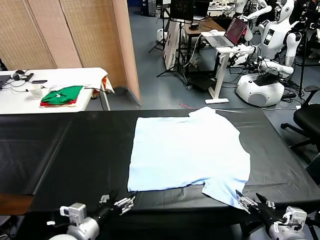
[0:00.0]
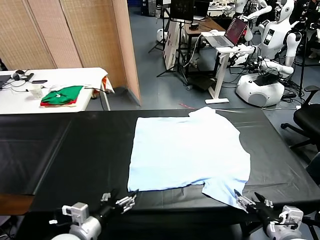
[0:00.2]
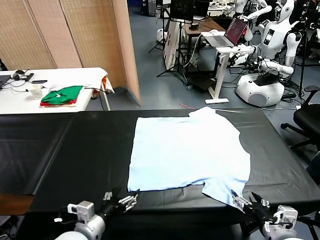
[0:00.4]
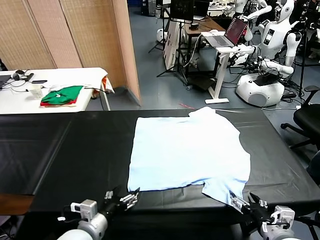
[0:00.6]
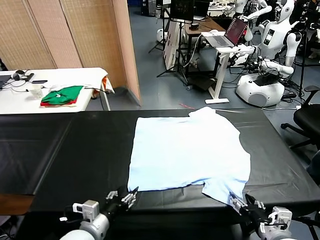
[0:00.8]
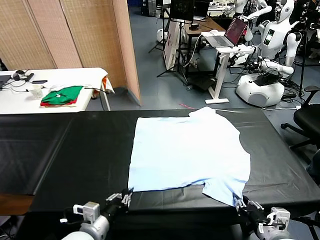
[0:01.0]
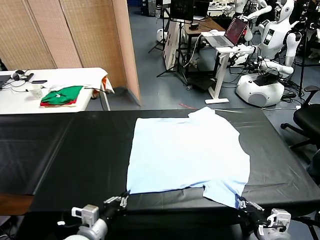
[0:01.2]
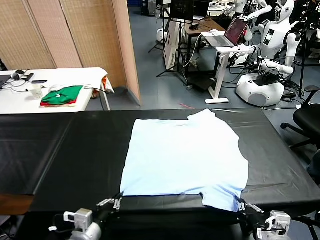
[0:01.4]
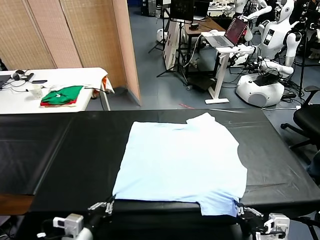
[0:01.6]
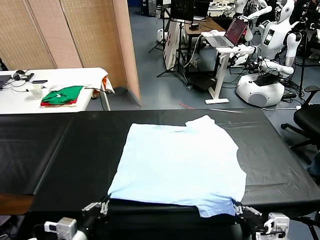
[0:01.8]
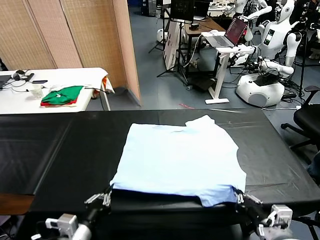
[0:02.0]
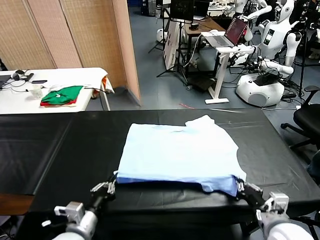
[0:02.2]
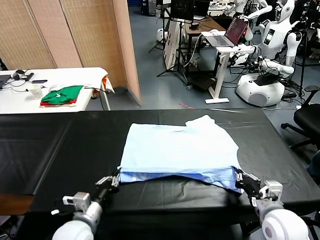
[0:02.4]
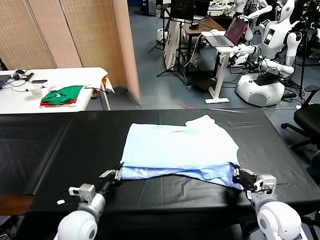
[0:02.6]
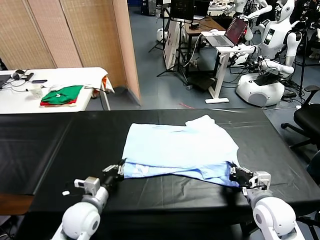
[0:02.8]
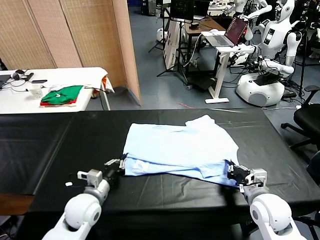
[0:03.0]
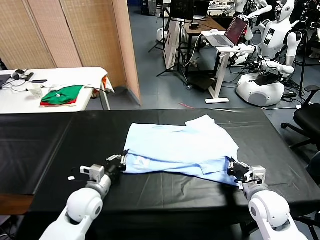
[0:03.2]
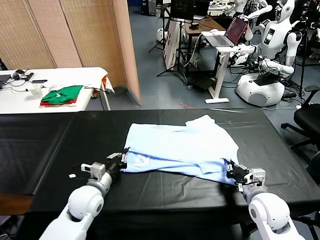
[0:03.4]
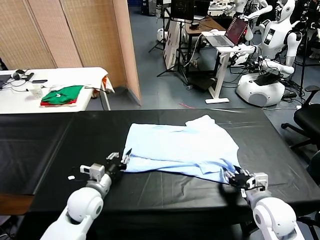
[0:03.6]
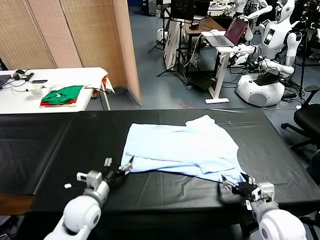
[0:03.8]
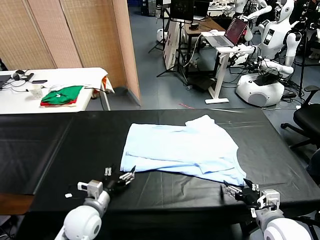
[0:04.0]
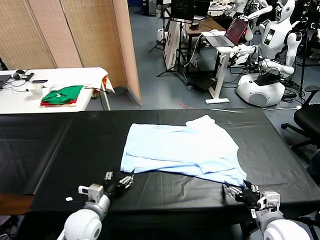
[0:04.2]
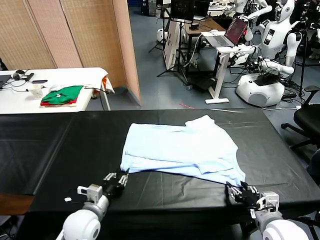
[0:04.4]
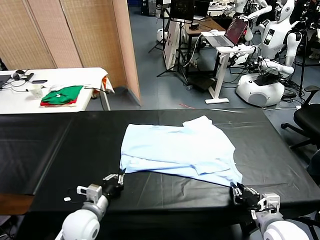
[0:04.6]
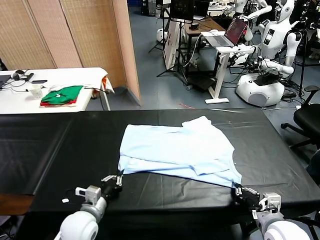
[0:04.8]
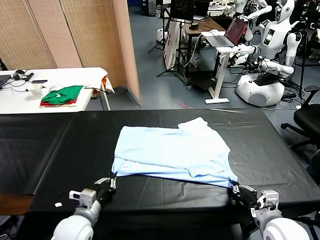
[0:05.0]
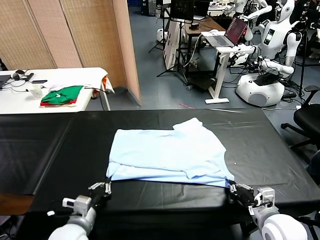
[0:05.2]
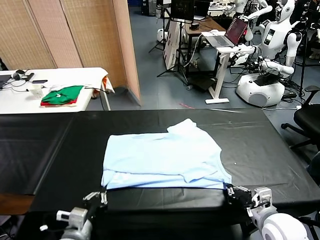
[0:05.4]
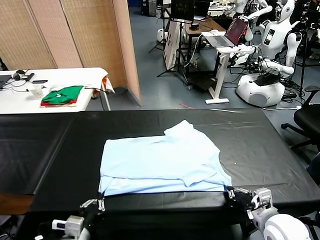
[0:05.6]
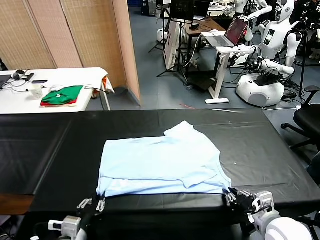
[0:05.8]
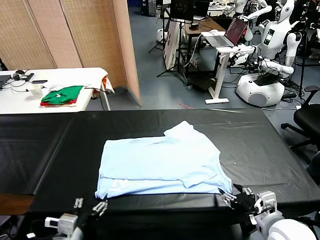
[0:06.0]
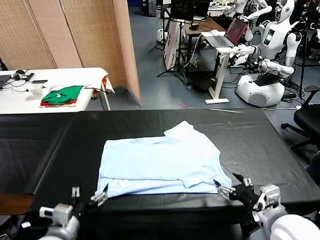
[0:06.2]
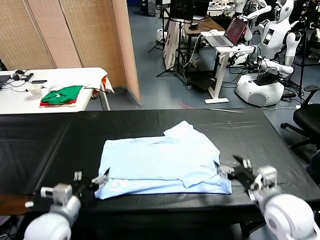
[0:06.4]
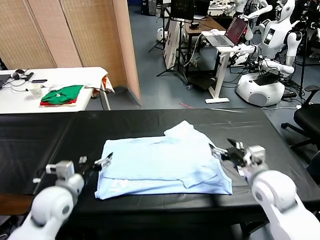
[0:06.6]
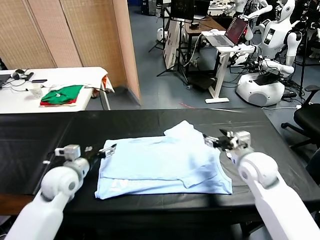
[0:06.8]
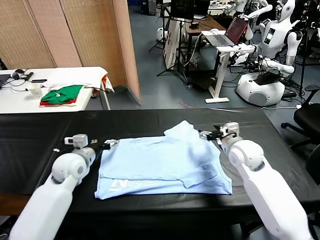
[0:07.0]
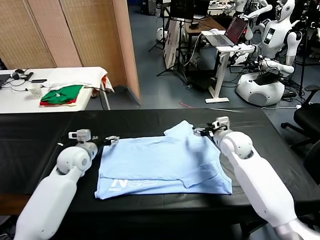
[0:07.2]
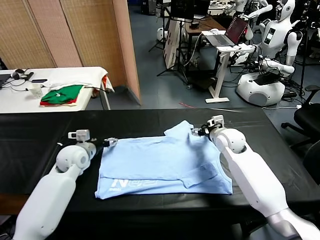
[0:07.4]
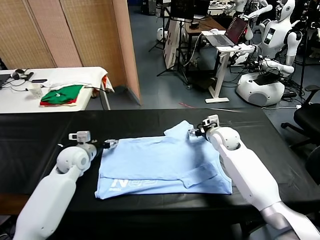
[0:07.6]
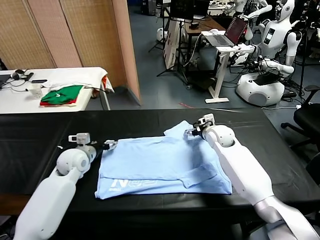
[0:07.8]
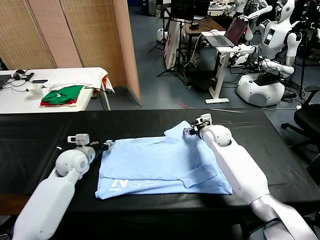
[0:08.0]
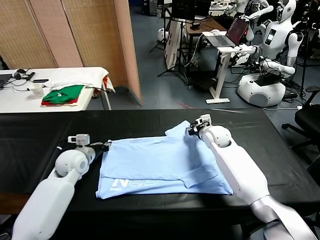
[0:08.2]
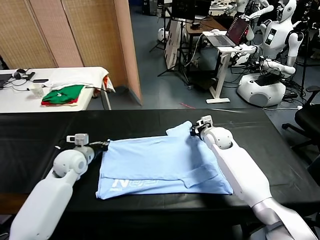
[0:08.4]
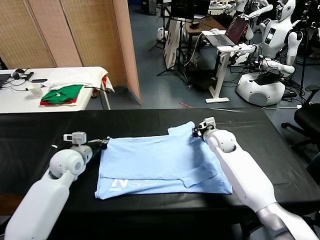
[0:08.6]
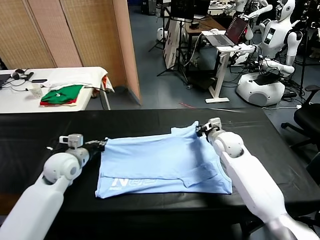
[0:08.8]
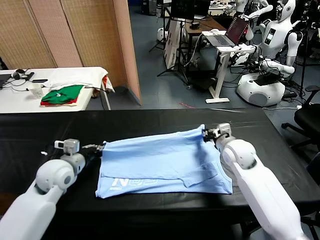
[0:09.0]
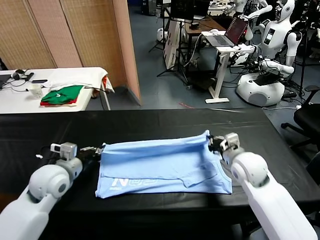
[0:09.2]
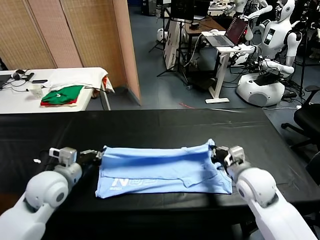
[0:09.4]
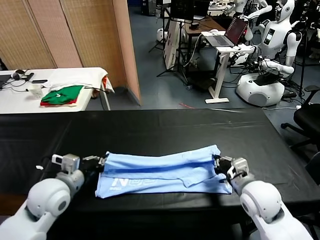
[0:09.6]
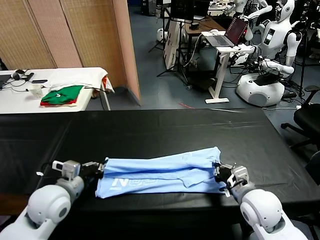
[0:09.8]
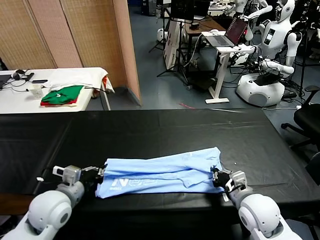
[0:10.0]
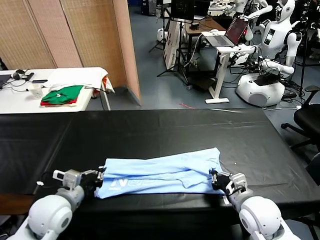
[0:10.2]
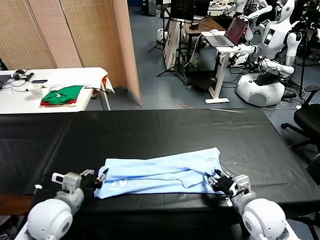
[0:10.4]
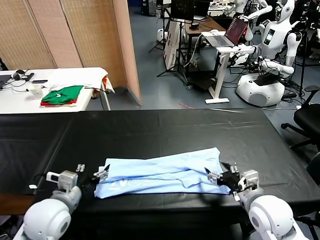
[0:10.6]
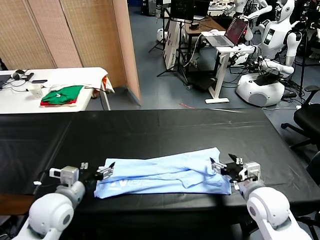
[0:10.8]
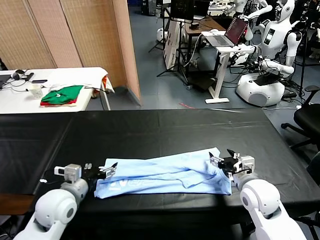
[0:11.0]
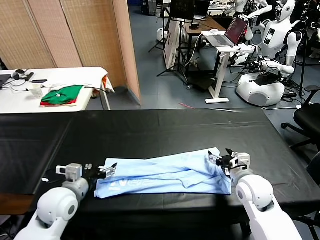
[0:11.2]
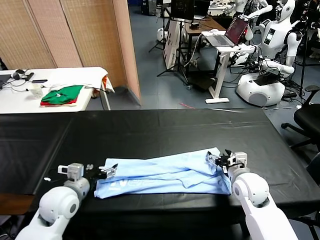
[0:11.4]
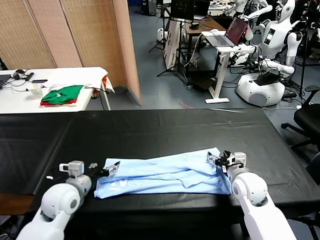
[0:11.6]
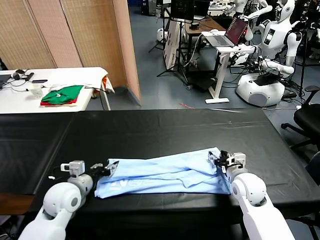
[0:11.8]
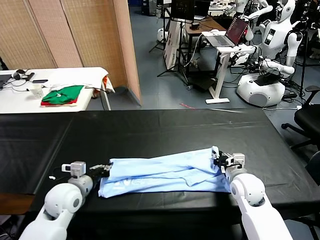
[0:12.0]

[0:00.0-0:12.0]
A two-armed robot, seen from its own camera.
Task of the whole recording: fold and organize the clothes.
Step, 0:00.0 to 0:01.2: use both grippers simultaneously to clamp the lower edge of the clothing fabric.
Step, 0:01.4 to 0:03.6: use both grippers to drag the lower edge of the fabric forward and fold it over the upper edge.
Step, 0:03.8 to 0:06.0: Drag the clothes downward with both gripper.
Step, 0:06.2 to 0:08.2: use both grippers simultaneously to clamp the upper edge of the clothing fabric.
Step, 0:08.4 to 0:10.2: use both grippers to drag the upper edge of the fabric backward and fold it over the lower edge.
0:01.6 to 0:03.0: The two grippers go approximately 15 cm forward.
0:03.0 to 0:04.4: The right gripper moves backward, about 10 cm, and opens and closes again. Meanwhile the left gripper moves roughly 5 cm, and opens, then closes once more.
0:04.4 to 0:06.0: The left gripper shifts roughly 10 cm backward and upward, and opens up; the right gripper is displaced upward by about 5 cm, and opens up.
0:06.0 to 0:07.6: Both grippers travel together forward, approximately 30 cm.
0:07.6 to 0:09.0: Both grippers move backward, about 10 cm. The left gripper closes. The right gripper closes up.
0:09.0 to 0:10.4: Both grippers move backward, approximately 15 cm. The right gripper opens its fingers. The left gripper opens its fingers.
0:10.4 to 0:12.0: The right gripper shifts roughly 10 cm forward and downward, and closes, while the left gripper moves forward, approximately 5 cm, and closes its fingers.

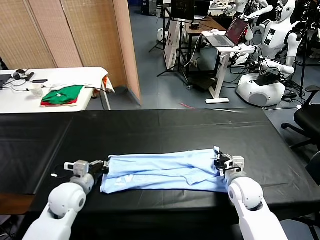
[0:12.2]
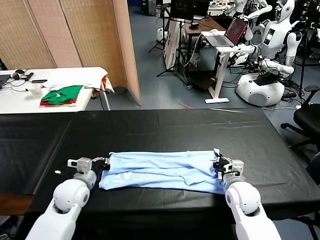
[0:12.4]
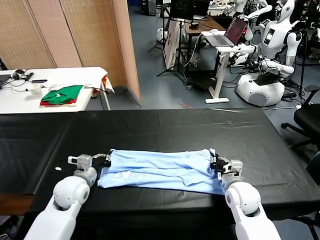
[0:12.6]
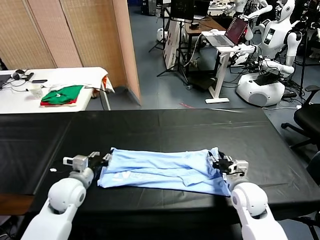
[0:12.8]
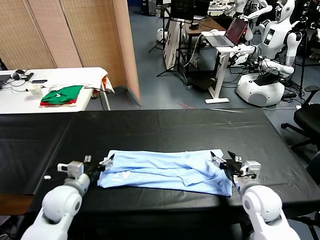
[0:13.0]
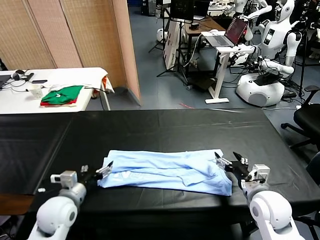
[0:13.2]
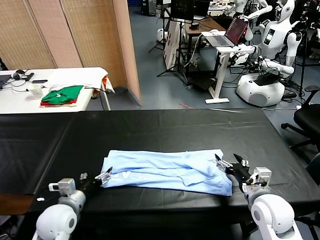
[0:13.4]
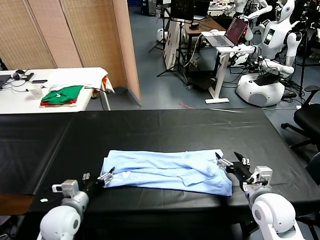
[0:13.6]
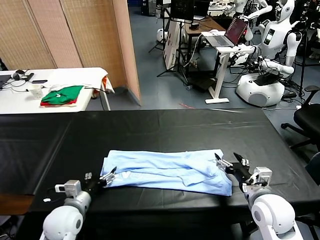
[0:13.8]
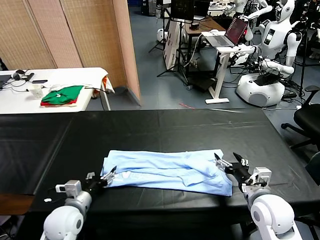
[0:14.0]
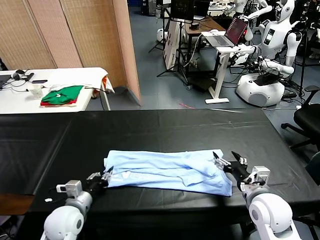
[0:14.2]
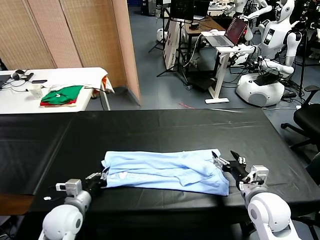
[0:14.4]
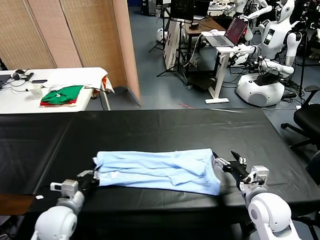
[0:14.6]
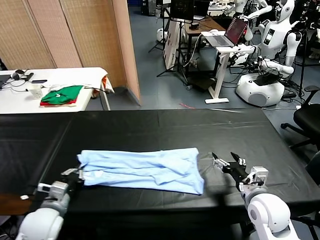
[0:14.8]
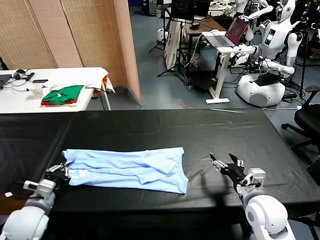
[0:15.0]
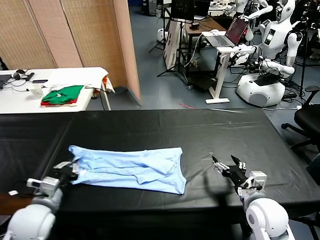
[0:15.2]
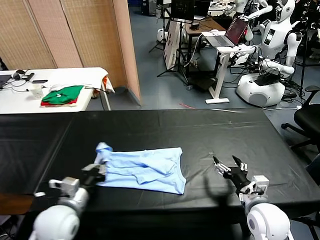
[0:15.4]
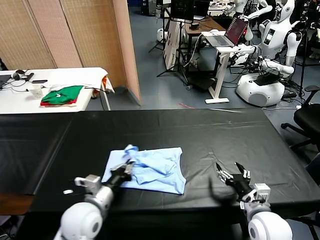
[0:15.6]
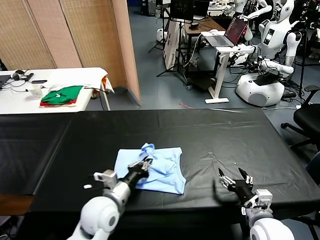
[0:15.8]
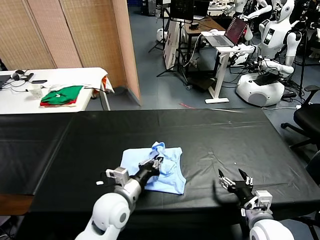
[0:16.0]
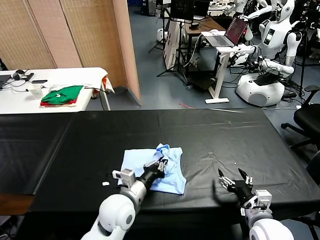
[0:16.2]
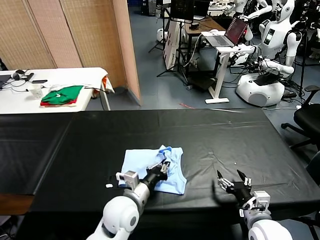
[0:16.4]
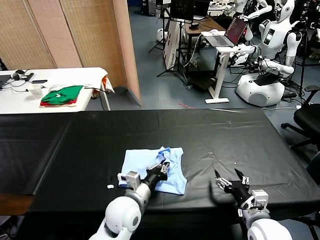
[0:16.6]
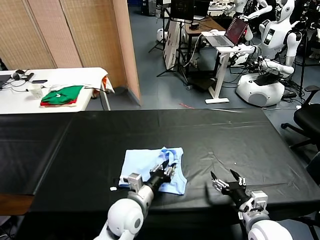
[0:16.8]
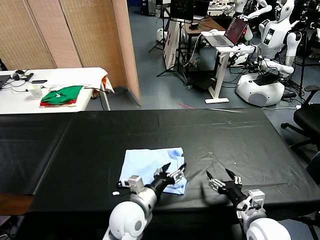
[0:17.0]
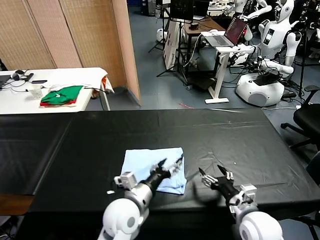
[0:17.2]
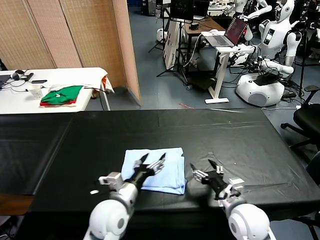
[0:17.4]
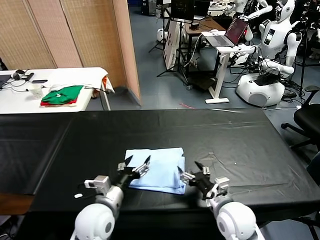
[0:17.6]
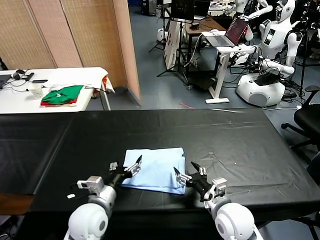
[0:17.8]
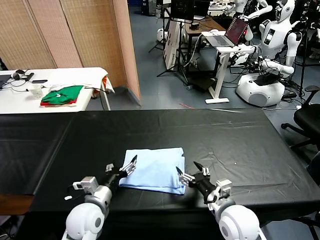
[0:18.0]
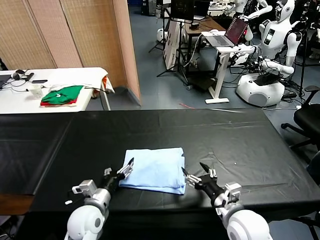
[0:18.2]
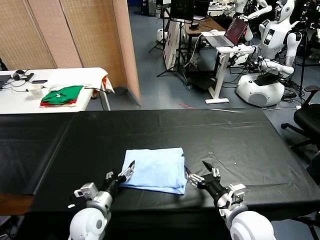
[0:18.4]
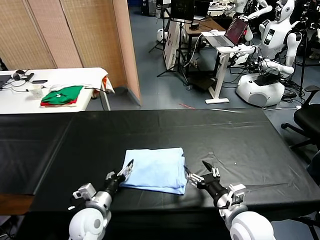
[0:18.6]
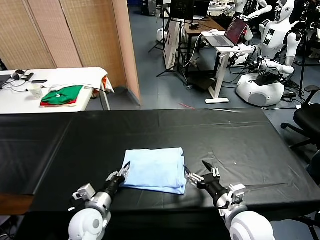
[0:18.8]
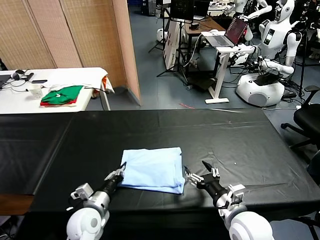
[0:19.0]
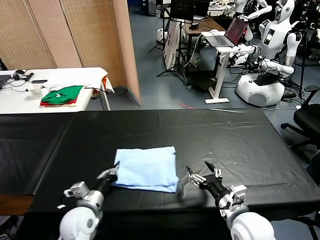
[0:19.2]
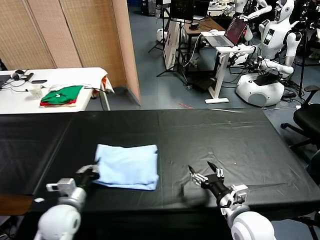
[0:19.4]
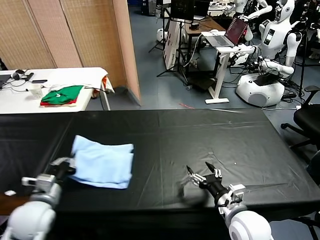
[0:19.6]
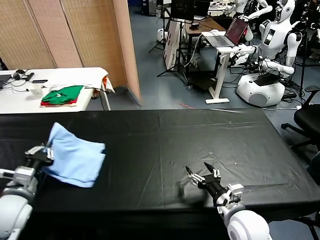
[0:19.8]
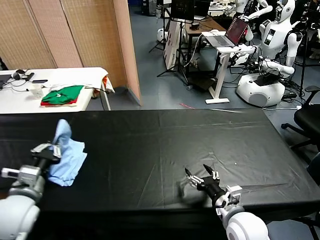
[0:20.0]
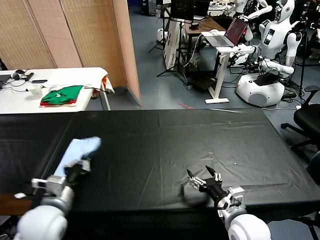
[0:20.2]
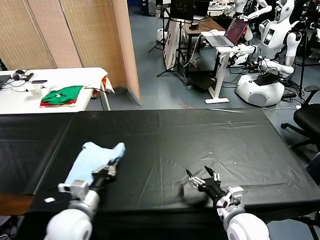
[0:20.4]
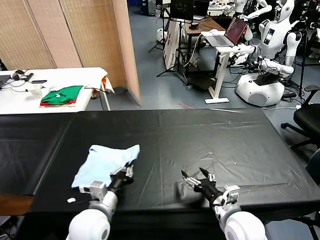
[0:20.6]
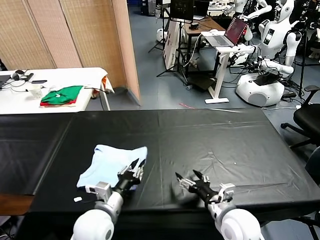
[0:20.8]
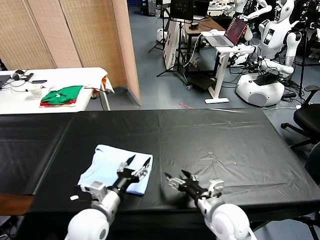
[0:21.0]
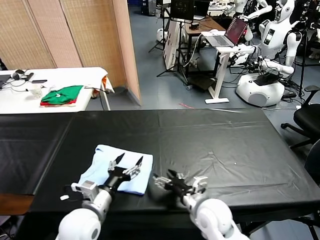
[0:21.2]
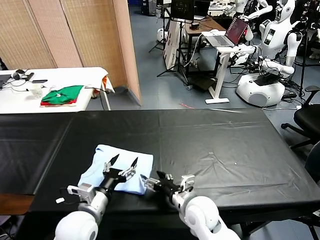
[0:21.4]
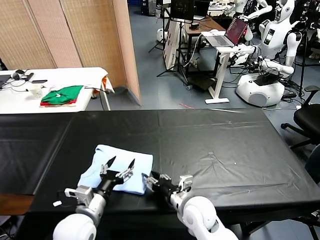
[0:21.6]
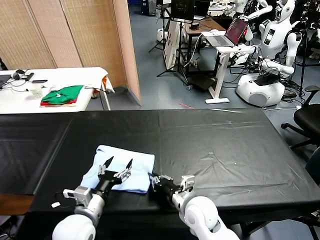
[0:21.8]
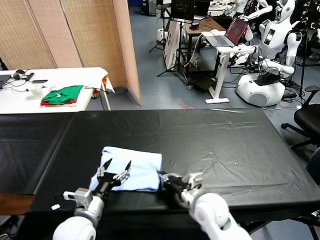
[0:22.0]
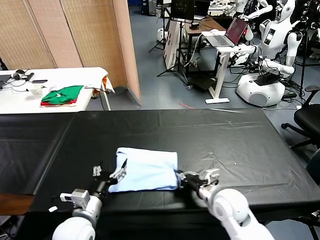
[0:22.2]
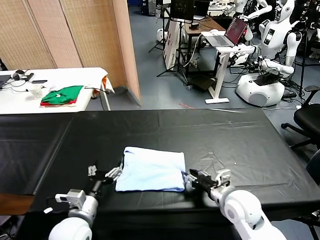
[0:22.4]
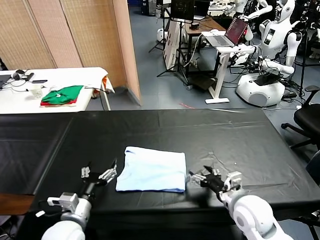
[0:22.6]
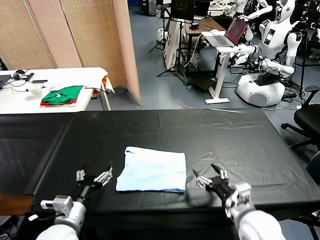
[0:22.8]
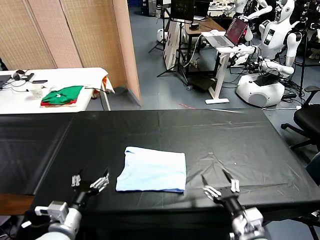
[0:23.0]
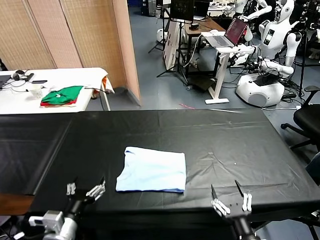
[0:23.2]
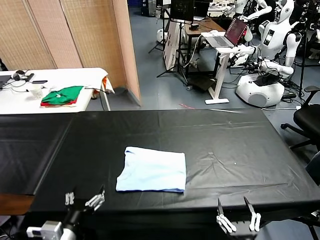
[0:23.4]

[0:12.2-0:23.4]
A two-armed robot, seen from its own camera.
Task of the whole recording: fold and organize the clothes.
Step, 0:12.2 to 0:14.2: use the left gripper to clamp the left edge of the fabric.
Step, 0:14.4 to 0:16.8: use the left gripper to drag the left edge of the fabric to the left and folds it over the right edge.
Step, 0:17.0 to 0:20.8: Flip the folded clothes over with left gripper.
Step, 0:21.0 to 0:22.4: Drag the clothes to the center of the table.
0:12.2 to 0:13.8: The left gripper travels backward by some 5 cm, and opens up. Meanwhile the right gripper travels backward and upward by approximately 10 cm, and opens.
0:13.8 to 0:15.4: The left gripper goes about 5 cm upward, and closes its fingers.
0:15.4 to 0:17.0: The left gripper heads to the right, covering roughly 20 cm, and opens.
0:17.0 to 0:18.6: The left gripper goes about 15 cm to the left; the right gripper is displaced to the left by roughly 5 cm.
0:18.6 to 0:20.2: The left gripper is displaced upward and to the left by about 15 cm, and closes its fingers.
0:20.2 to 0:21.8: The right gripper travels to the left and forward by approximately 15 cm, and closes. Meanwhile the left gripper is displaced to the right and downward by some 10 cm, and opens up.
0:21.8 to 0:23.4: The right gripper heads backward and to the right, covering approximately 25 cm, and opens. Meanwhile the left gripper goes about 10 cm backward.
